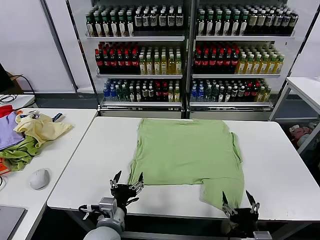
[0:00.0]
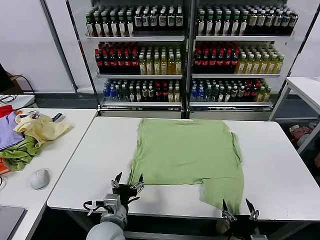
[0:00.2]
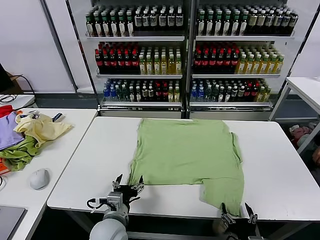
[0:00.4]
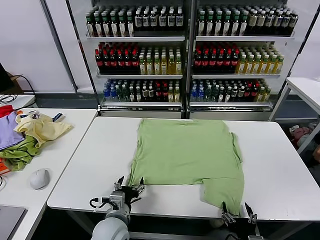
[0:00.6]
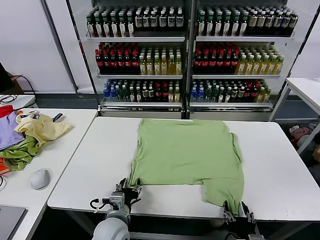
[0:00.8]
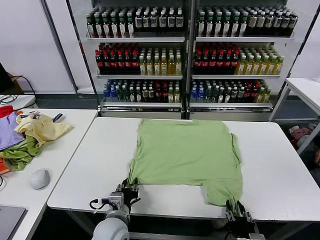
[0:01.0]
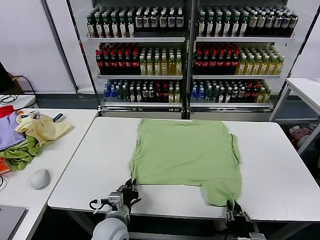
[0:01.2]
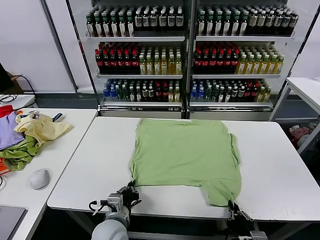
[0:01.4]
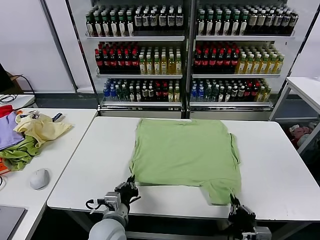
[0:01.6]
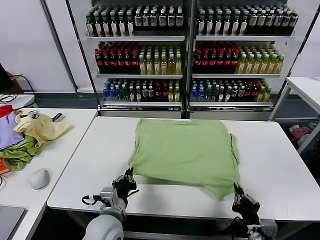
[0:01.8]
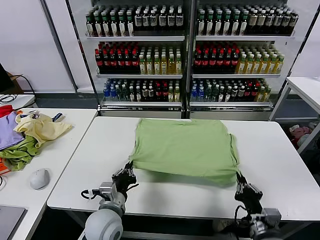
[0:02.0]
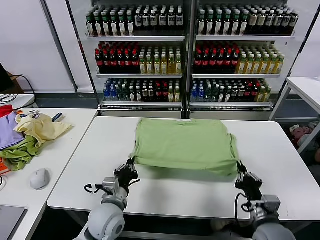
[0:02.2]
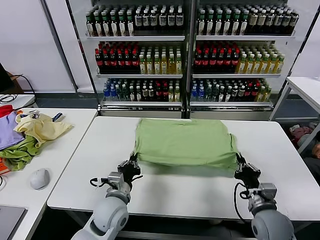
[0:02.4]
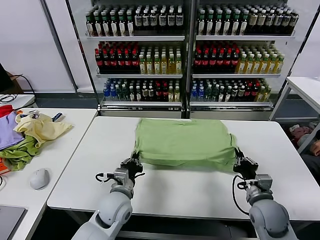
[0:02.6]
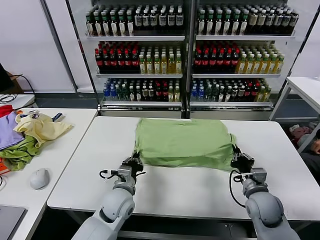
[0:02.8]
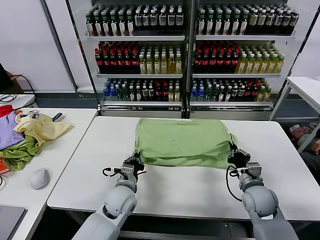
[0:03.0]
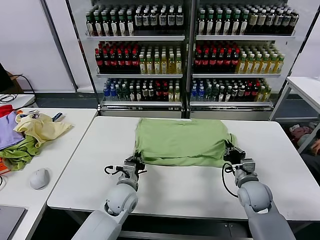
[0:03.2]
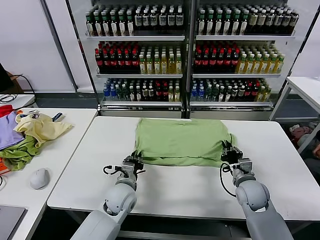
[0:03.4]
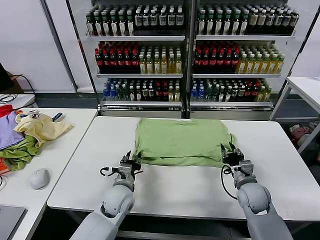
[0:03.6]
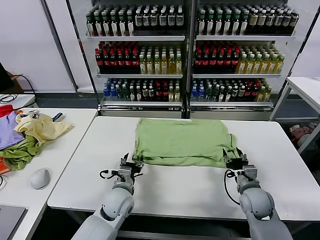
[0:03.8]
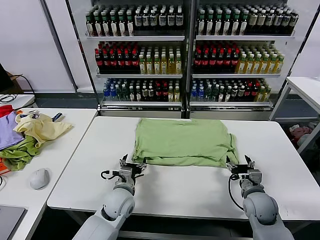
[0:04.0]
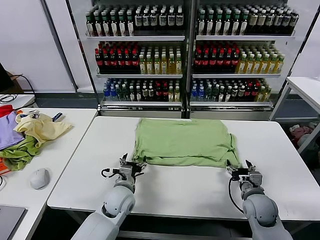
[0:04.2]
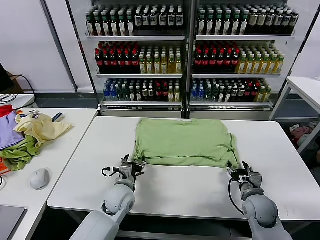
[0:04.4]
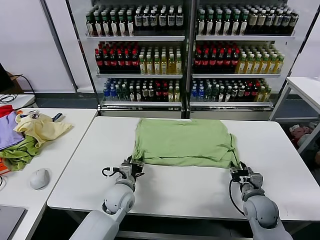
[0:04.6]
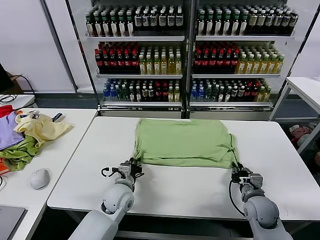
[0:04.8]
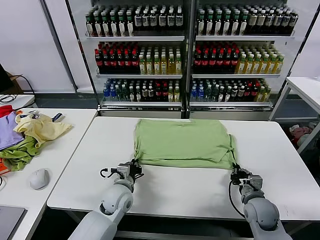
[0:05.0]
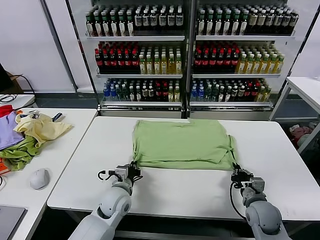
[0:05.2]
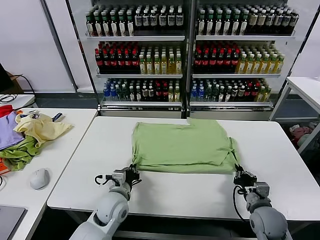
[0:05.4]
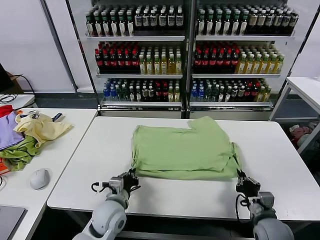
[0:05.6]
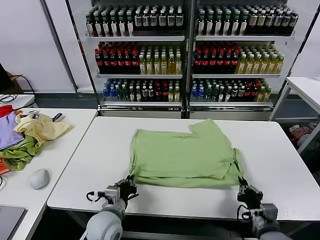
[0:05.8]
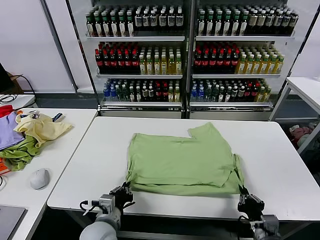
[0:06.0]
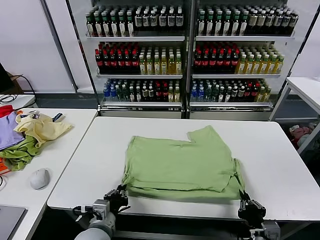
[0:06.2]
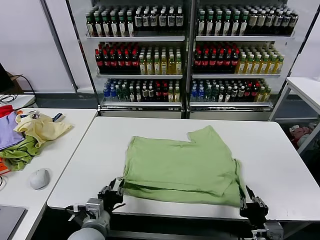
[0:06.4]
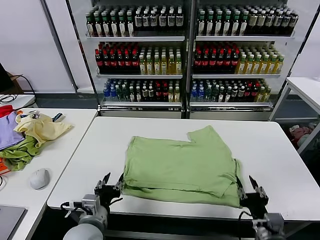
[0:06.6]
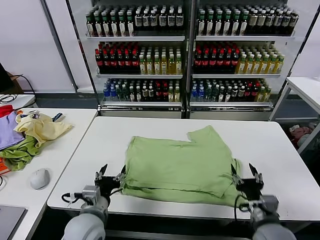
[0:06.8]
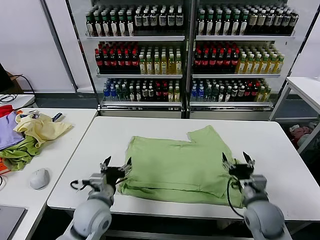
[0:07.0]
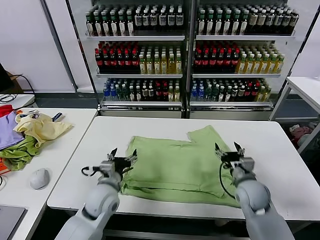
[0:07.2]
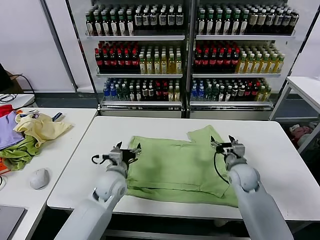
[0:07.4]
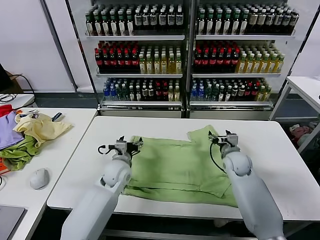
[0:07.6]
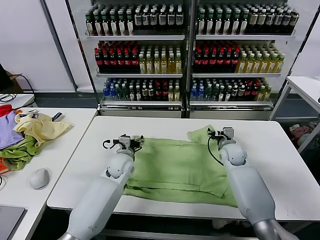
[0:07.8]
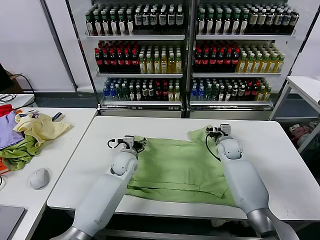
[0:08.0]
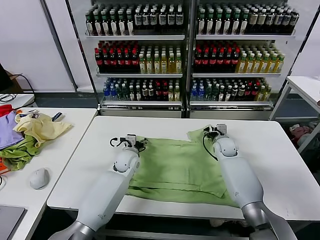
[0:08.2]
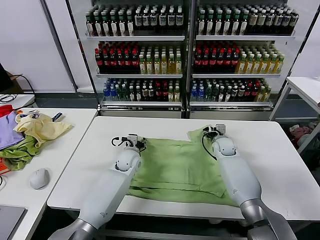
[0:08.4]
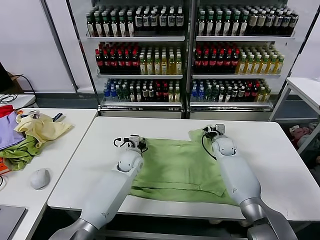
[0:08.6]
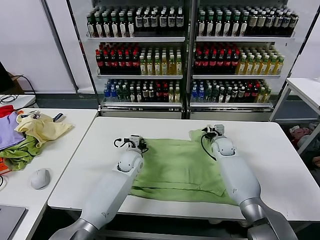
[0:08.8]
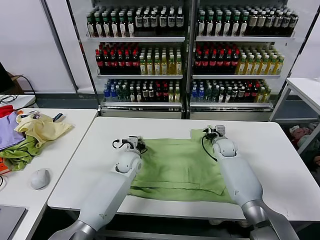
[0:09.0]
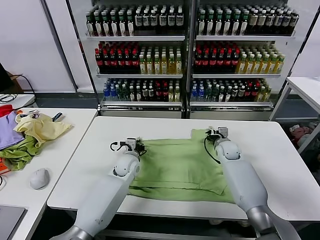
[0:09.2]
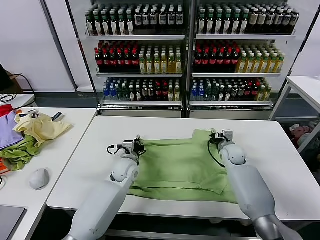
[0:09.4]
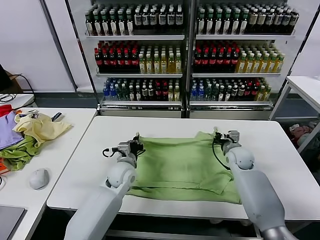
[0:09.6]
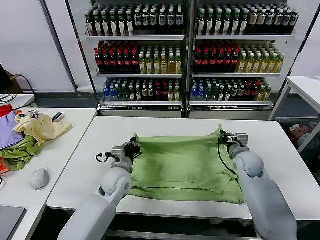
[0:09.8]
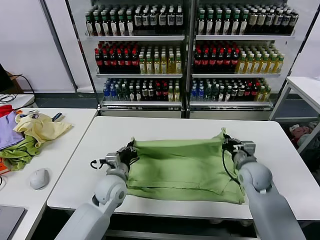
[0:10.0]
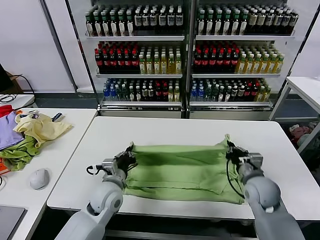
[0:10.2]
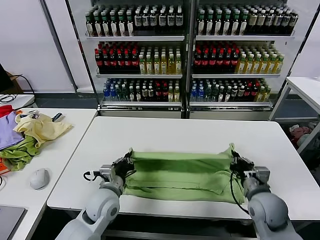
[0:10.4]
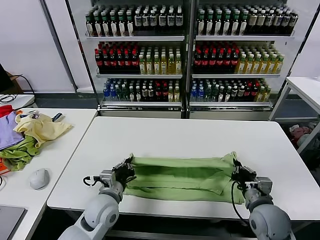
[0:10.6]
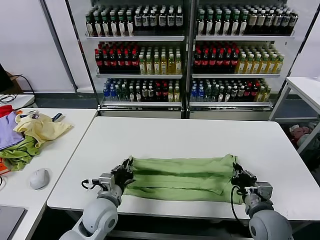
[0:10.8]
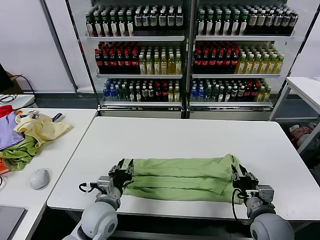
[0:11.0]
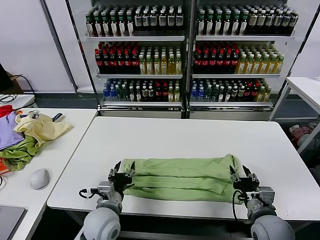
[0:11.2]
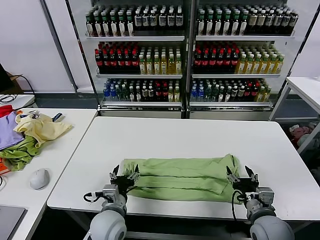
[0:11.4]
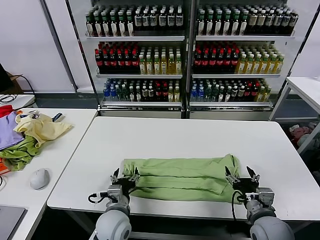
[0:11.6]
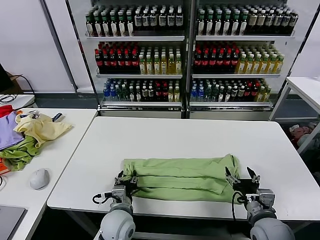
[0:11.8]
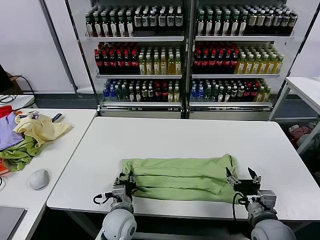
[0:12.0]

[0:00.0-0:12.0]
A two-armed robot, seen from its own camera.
Task of the whole recording: fold and organize the clothes.
Step, 0:00.0 to 0:01.4: use both grippers simultaneously to clamp the lower edge of the clothing fabric.
Step, 0:01.6 to 0:03.6: use both grippers to drag the lower edge of the fabric forward and fold it over the upper edge.
Step, 0:03.8 to 0:06.4: Drag the clothes downward with both gripper.
Step, 0:06.6 to 0:09.0: use both grippers simultaneously to clamp the upper edge of the clothing fabric.
Step, 0:09.2 to 0:11.0: use both grippers to drag the upper edge of the fabric backward and fold it over the lower edge.
0:01.6 to 0:03.0: The right gripper travels forward by about 20 cm; the left gripper goes some 10 cm forward.
0:03.0 to 0:04.4: The right gripper opens, while the left gripper opens its fingers.
0:04.4 to 0:06.0: Both grippers move backward, roughly 15 cm. The right gripper closes; the left gripper closes.
0:06.0 to 0:07.6: The right gripper shifts about 35 cm forward, and opens its fingers. Meanwhile the left gripper heads forward, covering about 20 cm, and opens.
0:07.6 to 0:09.0: The two grippers go about 5 cm forward. The right gripper closes its fingers. Meanwhile the left gripper closes.
0:09.0 to 0:10.4: The left gripper shifts about 20 cm backward. The right gripper heads backward, covering approximately 30 cm.
0:10.4 to 0:12.0: The right gripper heads backward, covering approximately 5 cm, and opens up. The left gripper is displaced downward by some 5 cm, and opens.

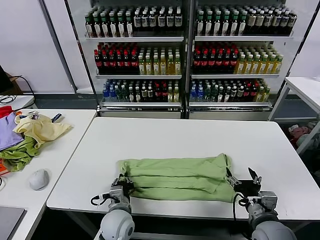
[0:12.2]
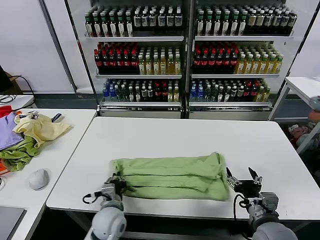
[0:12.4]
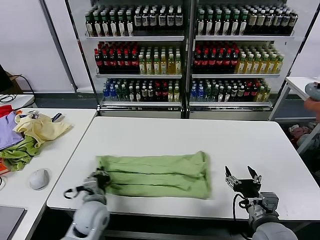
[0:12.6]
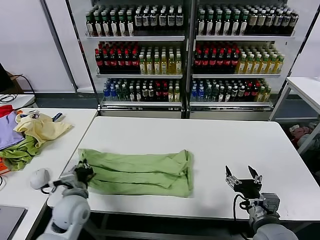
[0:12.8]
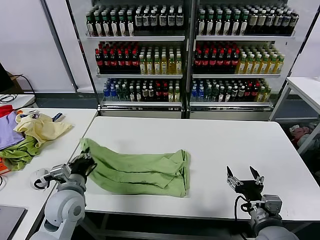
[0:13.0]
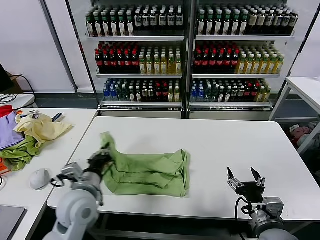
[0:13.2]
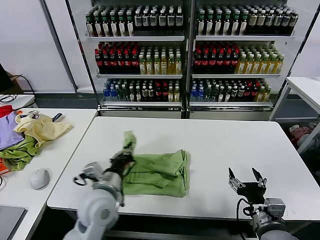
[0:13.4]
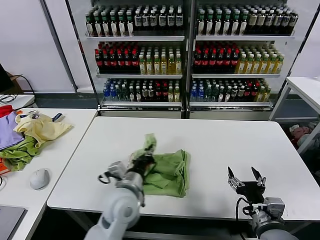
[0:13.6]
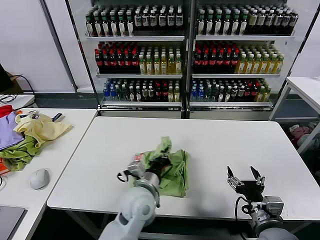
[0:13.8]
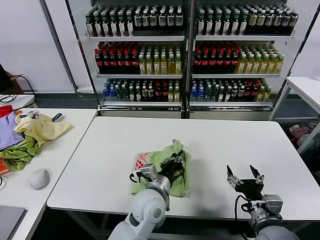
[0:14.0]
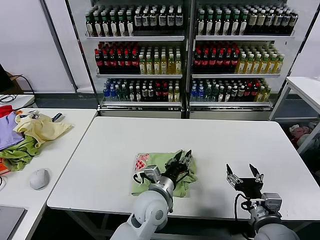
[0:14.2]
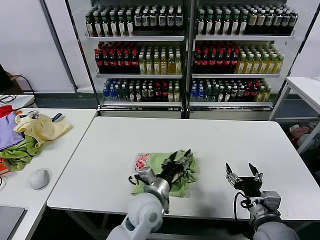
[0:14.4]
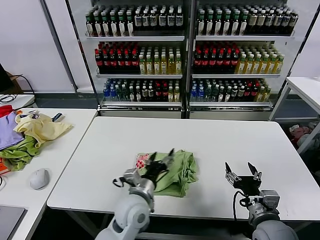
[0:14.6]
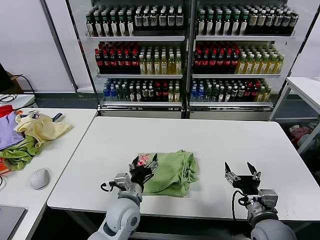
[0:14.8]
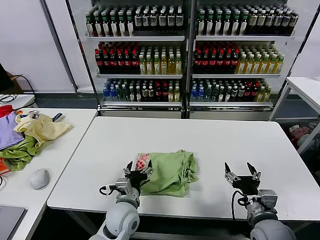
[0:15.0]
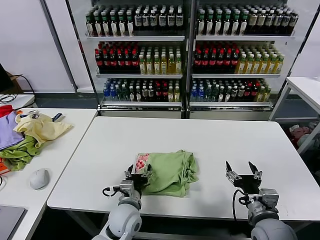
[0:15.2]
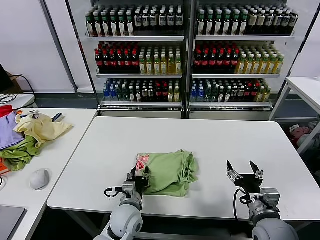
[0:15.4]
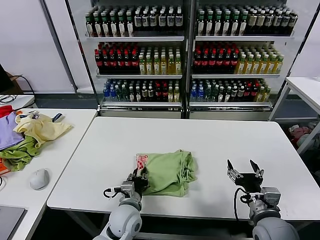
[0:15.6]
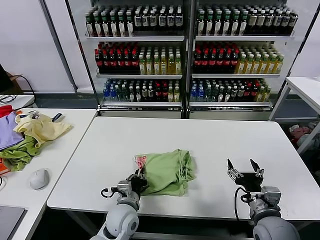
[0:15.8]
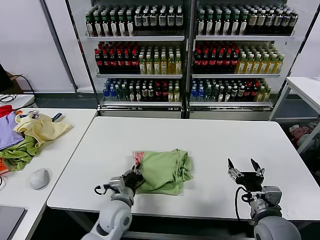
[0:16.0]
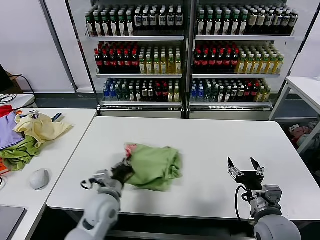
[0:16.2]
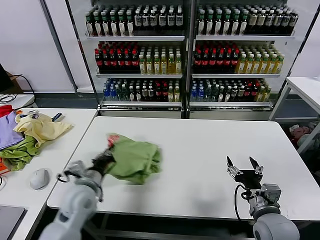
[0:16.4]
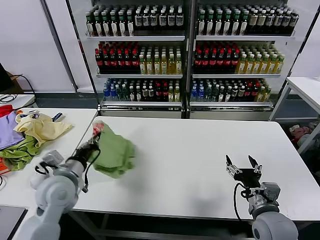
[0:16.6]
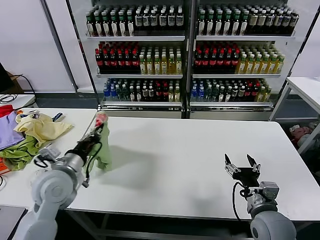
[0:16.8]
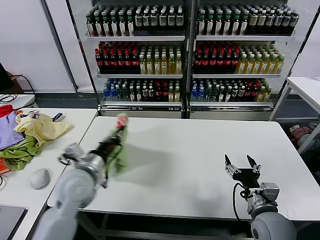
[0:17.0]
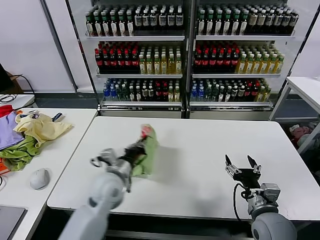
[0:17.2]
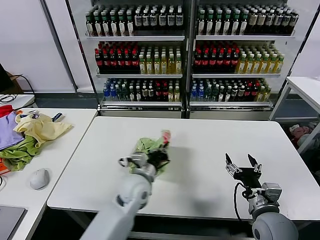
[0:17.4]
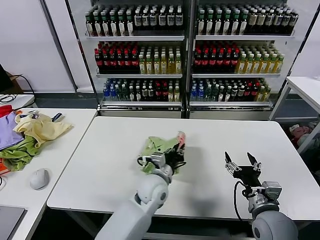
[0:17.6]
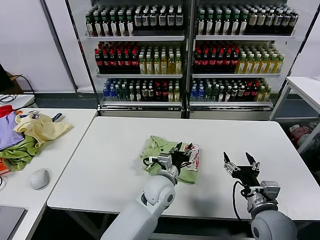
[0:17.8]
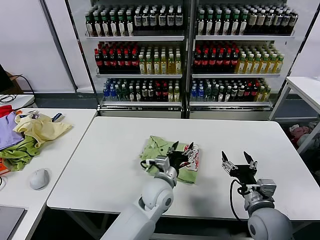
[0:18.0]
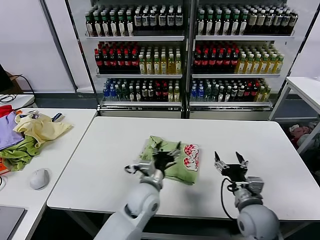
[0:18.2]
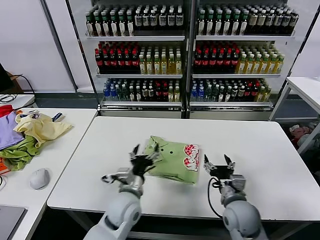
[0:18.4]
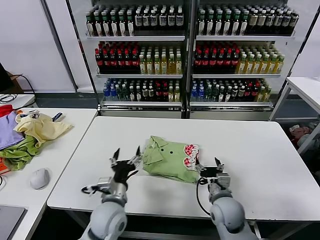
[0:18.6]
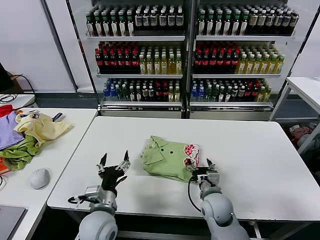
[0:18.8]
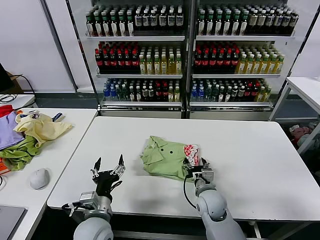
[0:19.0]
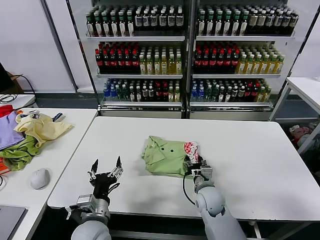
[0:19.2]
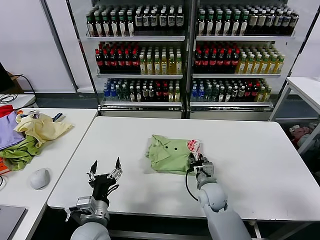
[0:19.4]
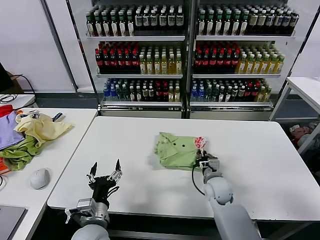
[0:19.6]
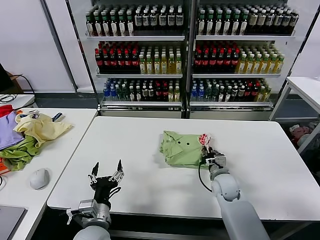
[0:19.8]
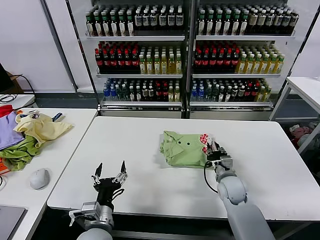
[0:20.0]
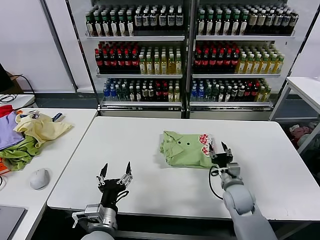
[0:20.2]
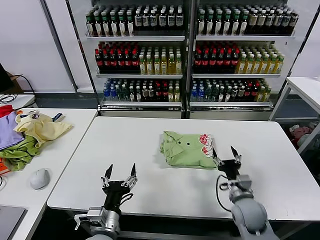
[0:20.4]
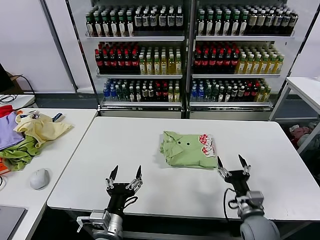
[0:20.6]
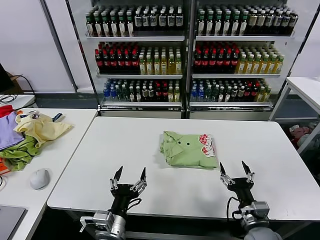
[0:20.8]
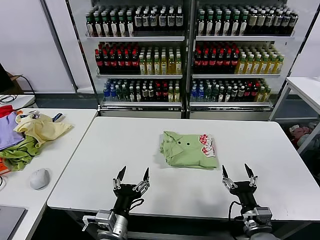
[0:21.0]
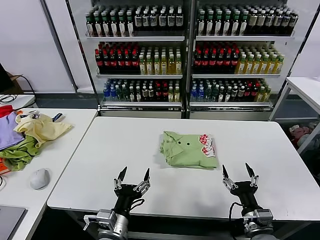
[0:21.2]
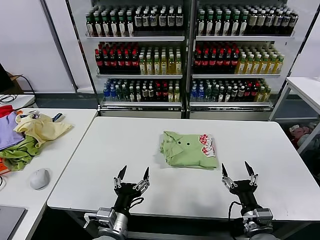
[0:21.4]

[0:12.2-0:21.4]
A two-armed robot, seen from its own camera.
Task of the whole recording: fold and organize the clothes.
Step, 0:12.4 to 0:14.2: use the left gripper to drag the left edge of the fabric to the left and folds it over the right edge.
Step, 0:14.4 to 0:17.8: Flip the folded clothes over with left gripper.
Step, 0:18.0 to 0:20.0: Drag the clothes to the center of the table.
0:12.2 to 0:13.8: The left gripper heads upward and to the right, covering approximately 10 cm.
0:13.8 to 0:15.2: The left gripper shifts some 10 cm downward, and opens up.
0:15.2 to 0:16.8: The left gripper moves to the left and upward, roughly 25 cm, and closes.
0:16.8 to 0:18.4: The right gripper moves to the left, approximately 5 cm; the left gripper shifts approximately 20 cm to the right and downward, and opens up.
0:18.4 to 0:19.8: The left gripper is displaced backward and to the left by about 10 cm. The right gripper heads forward, covering approximately 10 cm, and closes its fingers.
0:19.8 to 0:21.4: The left gripper shifts by some 5 cm, while the right gripper is displaced backward by some 20 cm, and opens its fingers.
